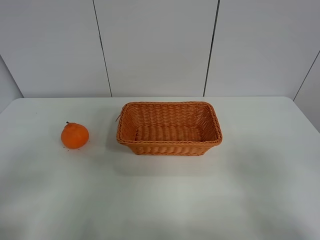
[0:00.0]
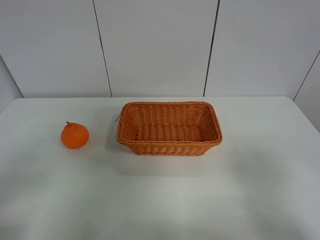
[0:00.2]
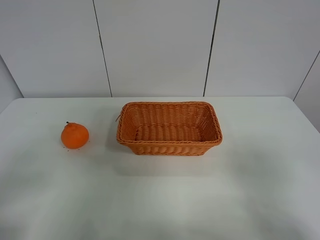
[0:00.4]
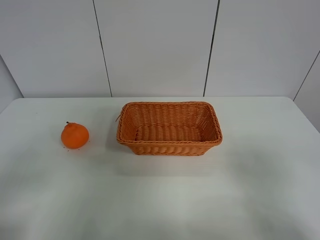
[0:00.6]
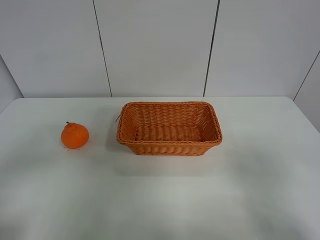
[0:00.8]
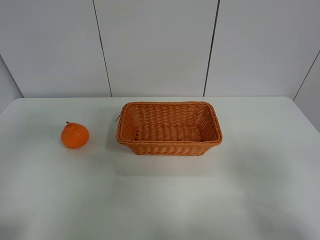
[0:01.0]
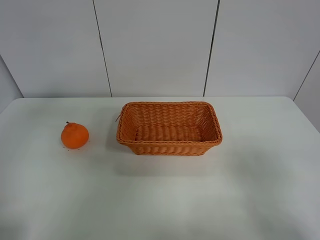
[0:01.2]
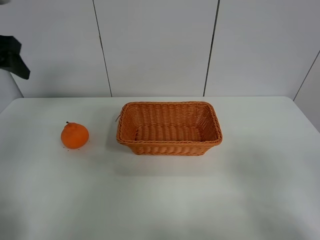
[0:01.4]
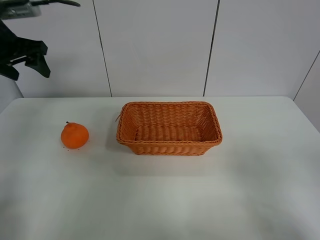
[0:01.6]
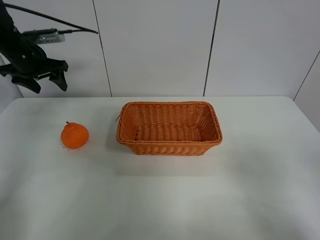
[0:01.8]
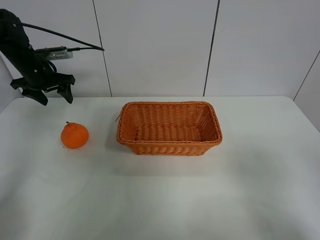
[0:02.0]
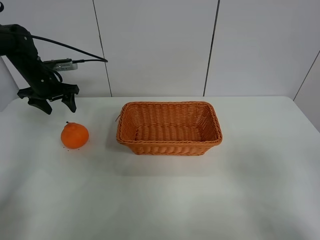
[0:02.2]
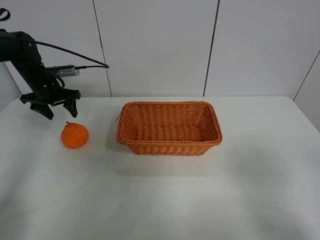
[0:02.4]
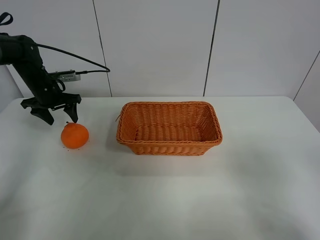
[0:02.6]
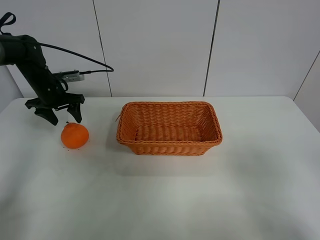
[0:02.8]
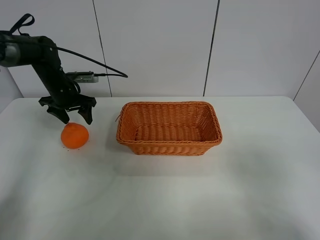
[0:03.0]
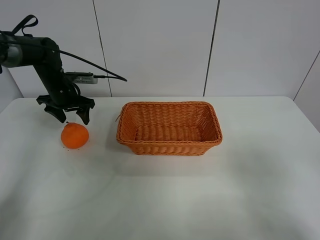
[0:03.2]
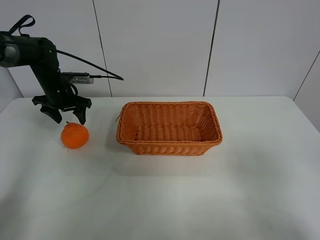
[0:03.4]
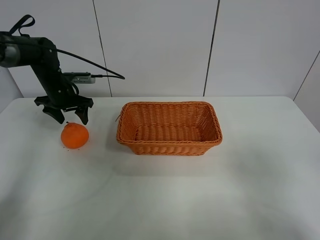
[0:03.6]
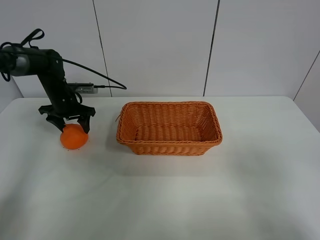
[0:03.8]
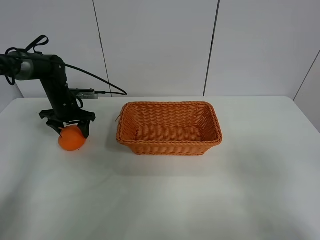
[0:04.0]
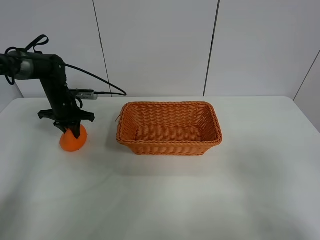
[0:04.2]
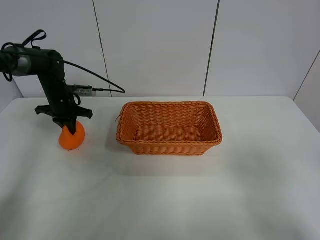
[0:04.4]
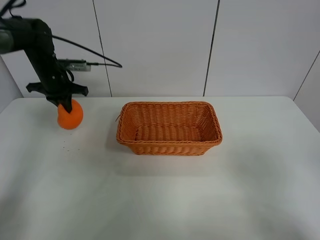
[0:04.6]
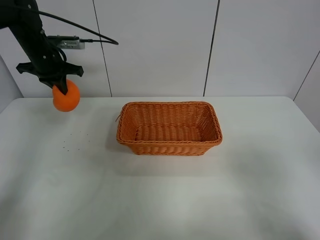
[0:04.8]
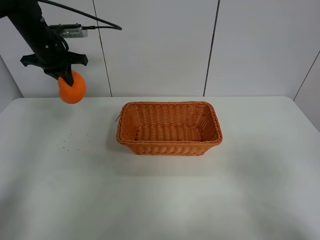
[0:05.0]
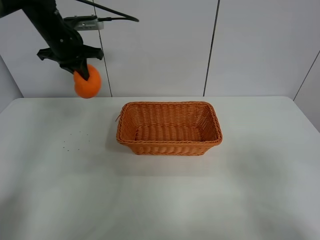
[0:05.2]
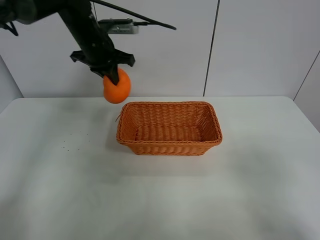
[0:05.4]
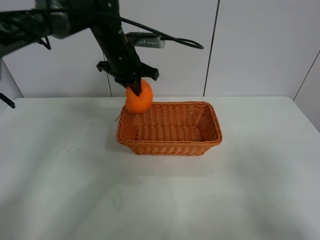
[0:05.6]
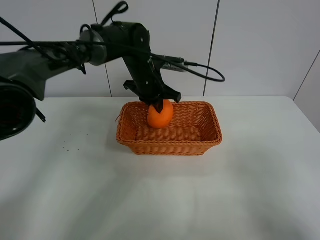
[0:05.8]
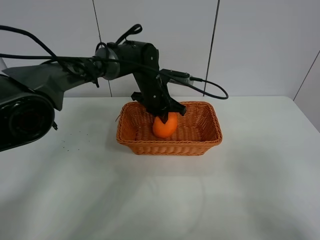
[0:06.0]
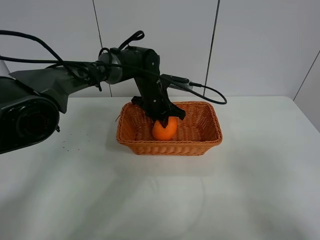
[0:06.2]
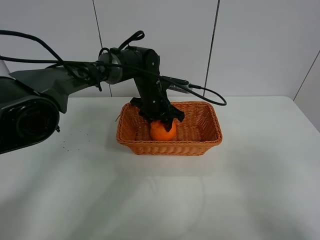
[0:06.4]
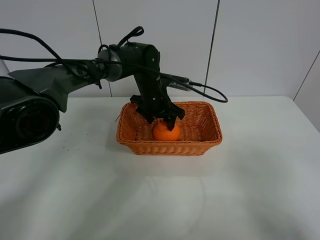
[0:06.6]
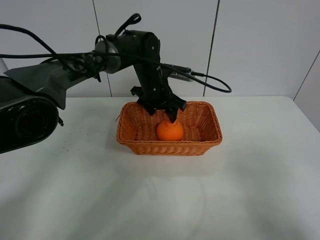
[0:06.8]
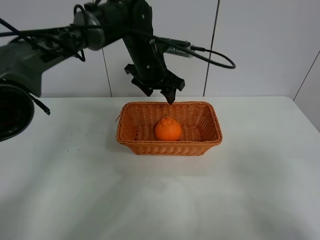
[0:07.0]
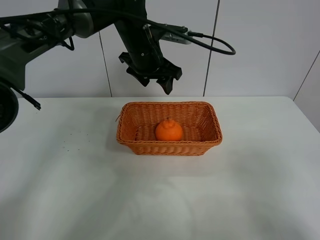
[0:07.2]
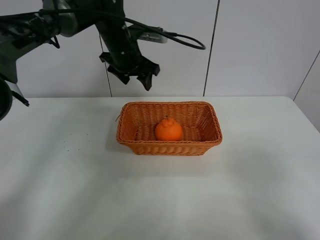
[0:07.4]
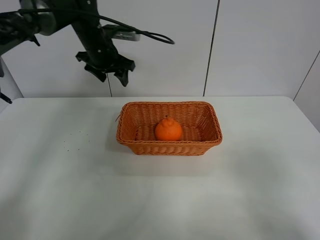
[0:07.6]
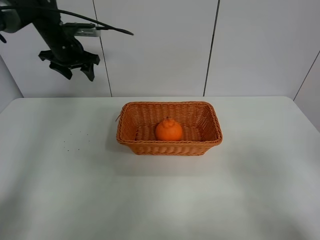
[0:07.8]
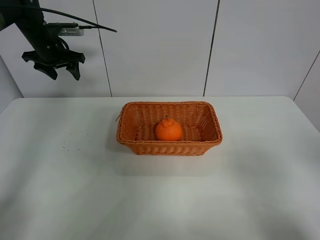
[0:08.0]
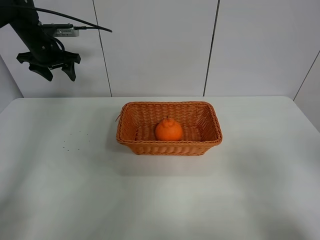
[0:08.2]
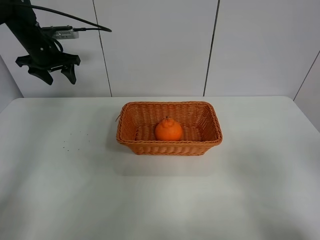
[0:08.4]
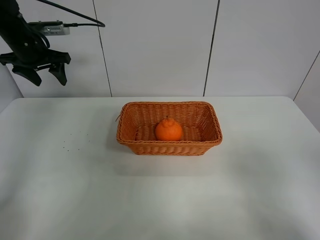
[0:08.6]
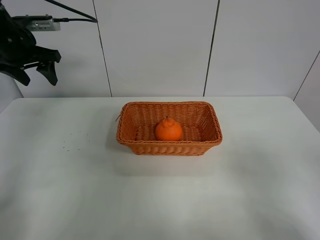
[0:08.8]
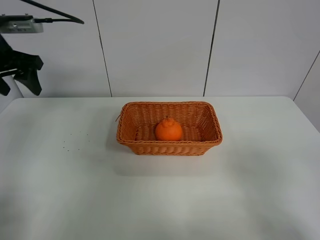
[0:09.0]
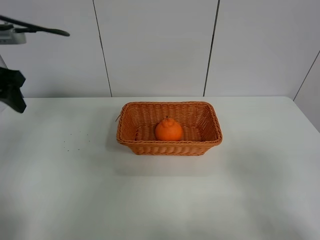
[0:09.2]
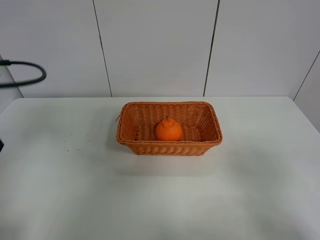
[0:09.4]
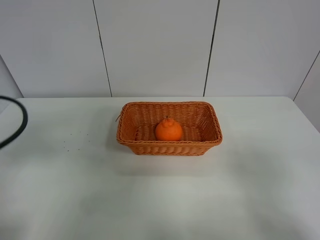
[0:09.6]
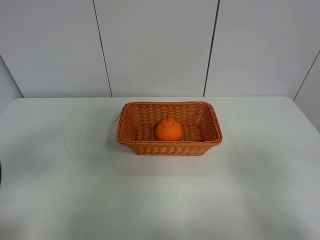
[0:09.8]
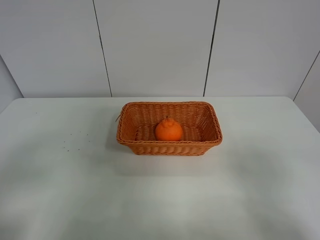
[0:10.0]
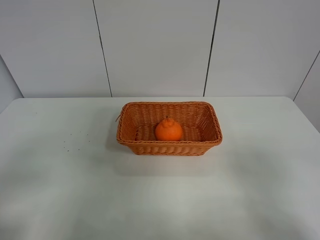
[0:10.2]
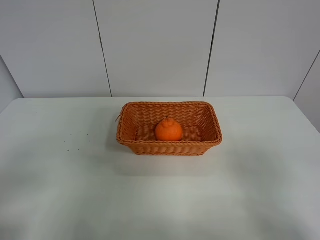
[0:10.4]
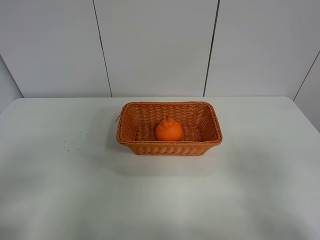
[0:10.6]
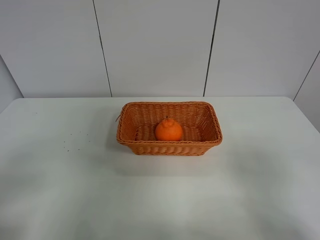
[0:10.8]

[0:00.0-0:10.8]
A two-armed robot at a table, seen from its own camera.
Task of the whole recording: left gripper grabs oranges and puts them in the basket.
Step, 0:00.0 to 0:04.2: Grasp the orange with left gripper.
Step, 0:04.4 to 0:07.6: Place the orange in the basket with left gripper.
0:00.0 to 0:01.6: The left gripper heads forward, covering some 40 cm.
0:01.6 to 0:03.0: The left gripper is displaced downward and forward by some 15 cm.
0:03.0 to 0:04.6: The left gripper heads upward, covering approximately 5 cm, and closes up.
0:04.6 to 0:06.2: The left gripper shifts approximately 25 cm to the right.
0:06.2 to 0:07.8: The left gripper shifts roughly 25 cm to the left and upward, and opens up.
0:07.8 to 0:09.2: The left gripper shifts approximately 25 cm backward.
0:09.2 to 0:10.8: The left gripper travels backward by roughly 25 cm.
